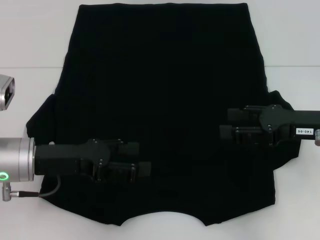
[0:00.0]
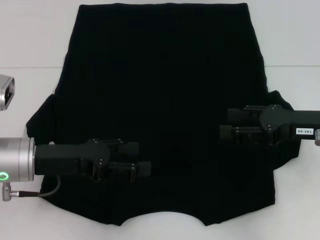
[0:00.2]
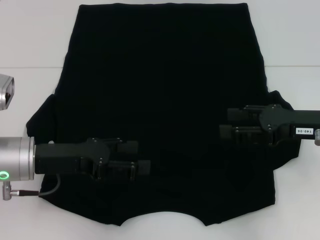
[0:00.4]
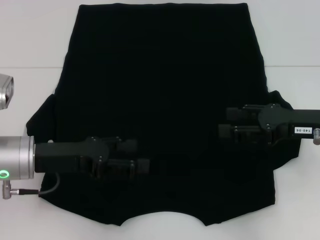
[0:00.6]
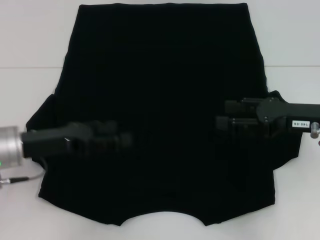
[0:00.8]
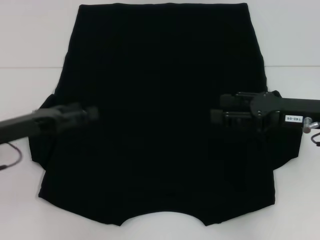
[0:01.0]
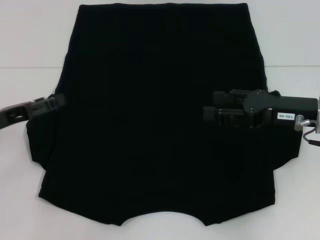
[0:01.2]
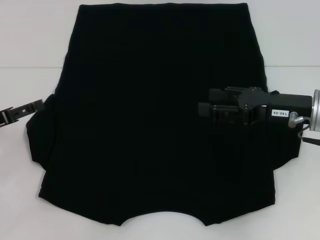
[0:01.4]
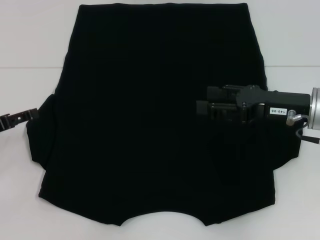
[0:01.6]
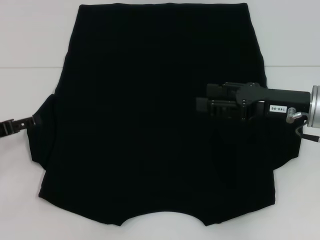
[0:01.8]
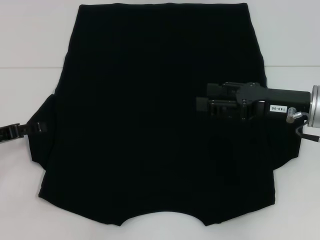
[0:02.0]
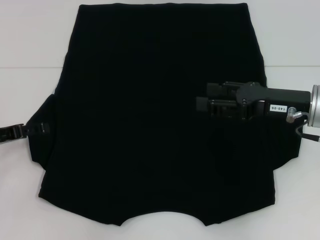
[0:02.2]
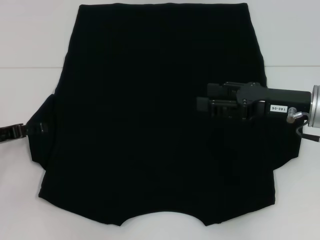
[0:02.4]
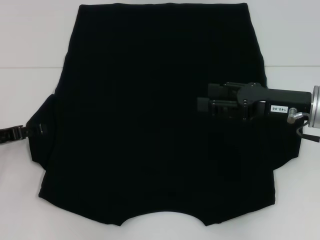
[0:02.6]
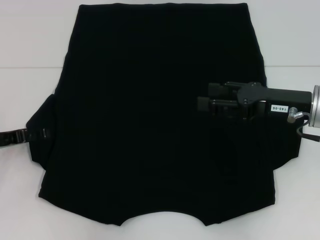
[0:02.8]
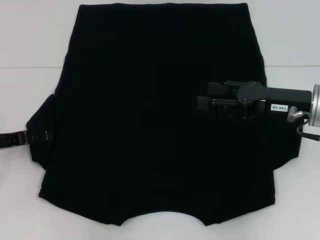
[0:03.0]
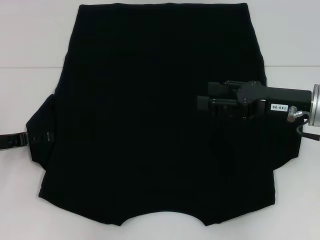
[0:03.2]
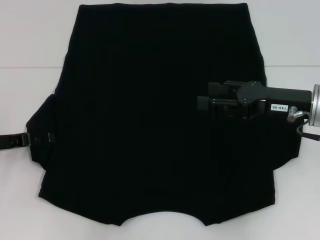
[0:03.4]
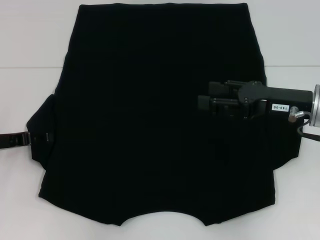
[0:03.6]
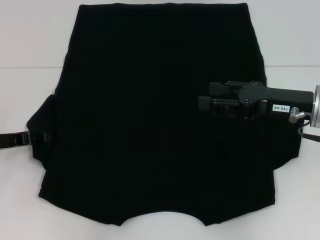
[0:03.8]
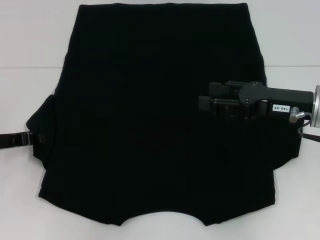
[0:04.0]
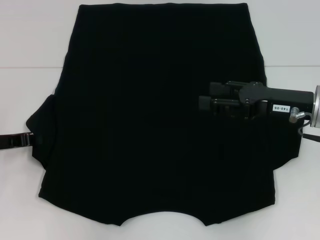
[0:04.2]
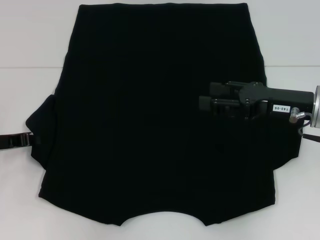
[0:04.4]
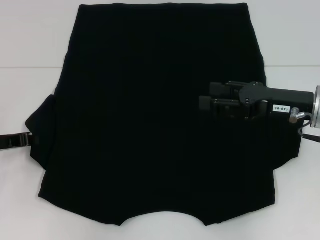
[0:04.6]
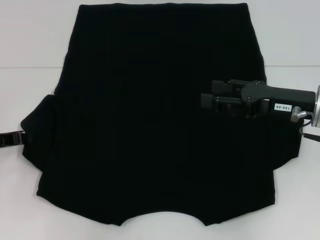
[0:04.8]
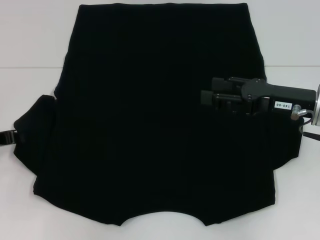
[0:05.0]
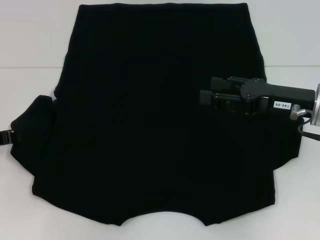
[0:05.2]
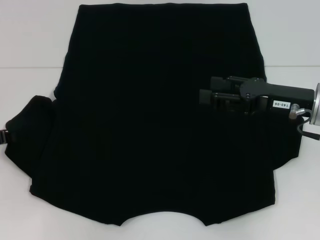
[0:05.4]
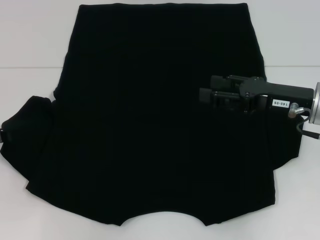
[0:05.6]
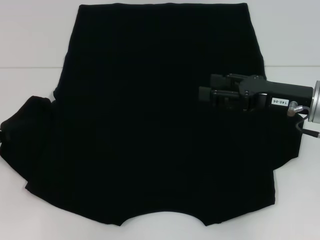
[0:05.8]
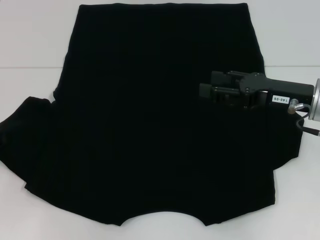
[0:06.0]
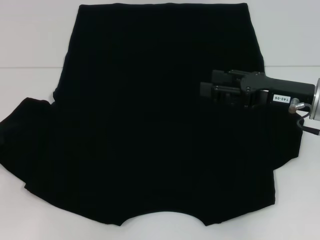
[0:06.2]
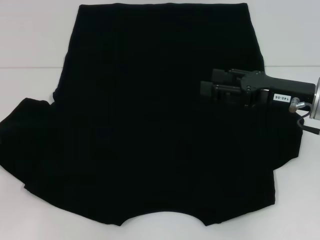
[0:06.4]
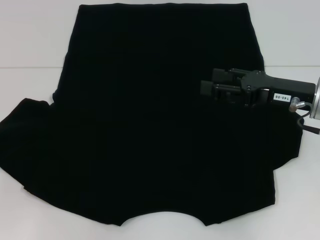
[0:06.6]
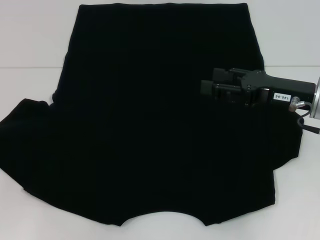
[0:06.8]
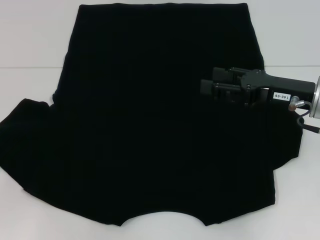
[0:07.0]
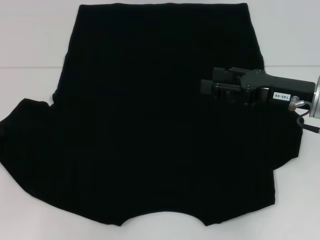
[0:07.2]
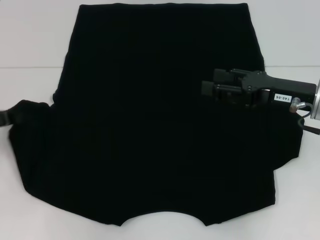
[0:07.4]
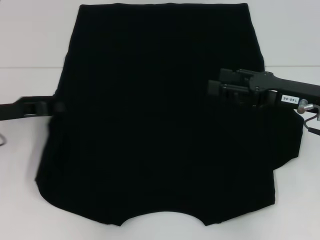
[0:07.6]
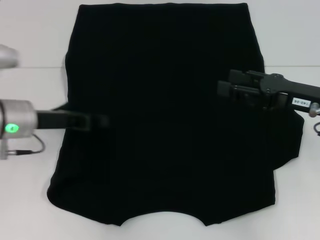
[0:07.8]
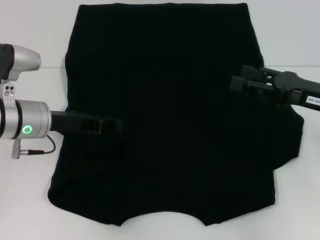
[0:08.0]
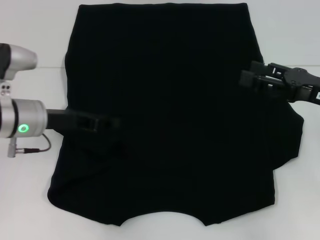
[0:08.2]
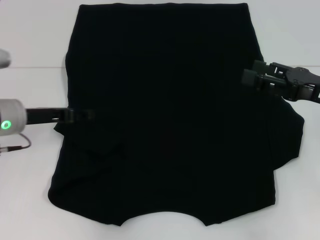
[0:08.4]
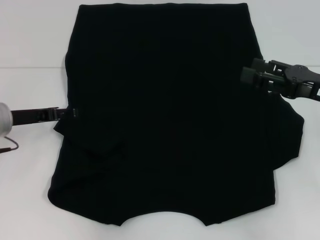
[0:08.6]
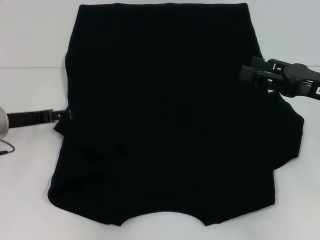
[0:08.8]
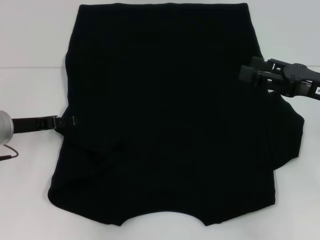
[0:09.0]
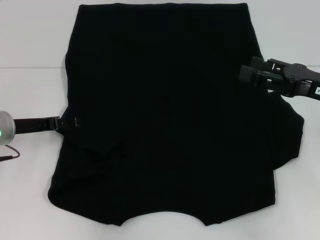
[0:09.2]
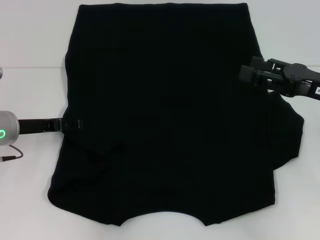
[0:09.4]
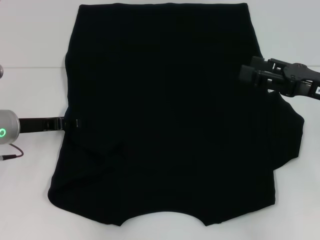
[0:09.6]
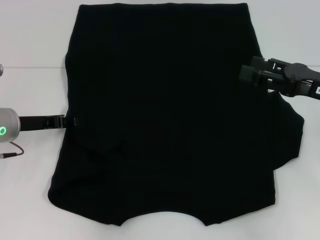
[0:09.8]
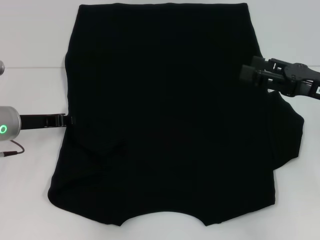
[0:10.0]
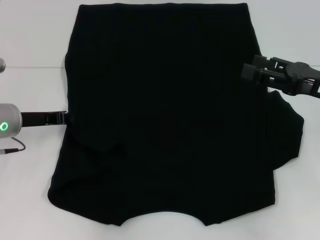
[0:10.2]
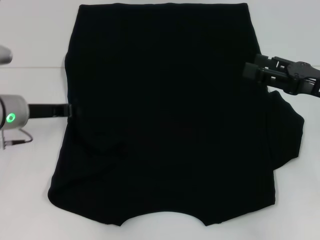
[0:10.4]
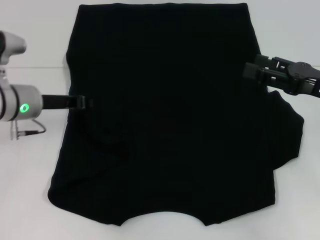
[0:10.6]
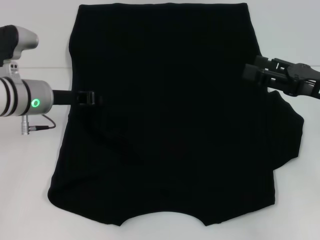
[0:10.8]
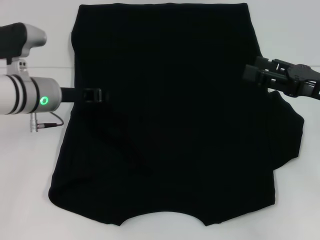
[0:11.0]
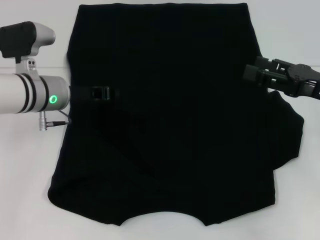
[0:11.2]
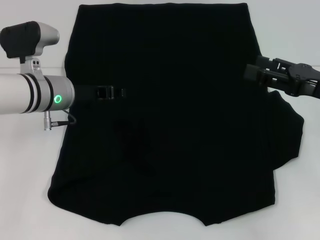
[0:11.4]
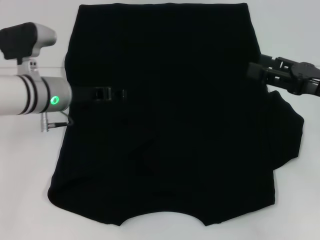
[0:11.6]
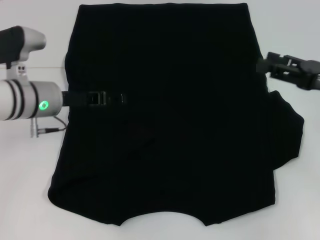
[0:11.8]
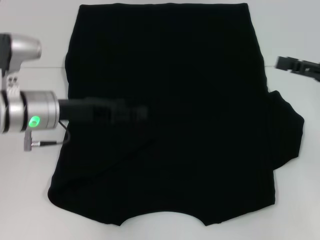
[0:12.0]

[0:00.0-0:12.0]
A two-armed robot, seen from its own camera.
Step, 0:00.0 to 0:08.2: Fold the bottom left sleeve with your left hand.
0:00.0 to 0:01.6: The left gripper is displaced to the left by some 10 cm.
0:01.6 to 0:03.0: The grippers move only a little.
0:04.4 to 0:06.0: The grippers stay close to where they were, moving slightly.
0:06.0 to 0:07.6: The left gripper shifts approximately 5 cm to the right.
0:07.6 to 0:09.0: The left gripper reaches about 10 cm to the right, then returns, and opens.
0:09.0 to 0:10.4: The left gripper closes its fingers.
0:10.4 to 0:12.0: The left gripper moves approximately 5 cm, and opens.

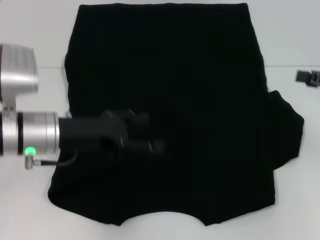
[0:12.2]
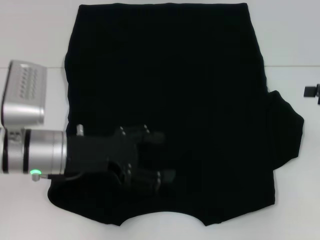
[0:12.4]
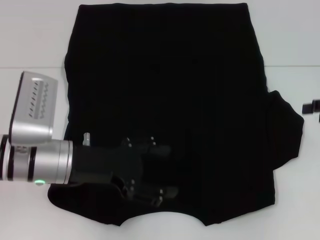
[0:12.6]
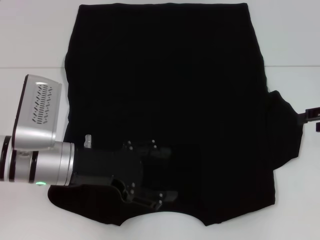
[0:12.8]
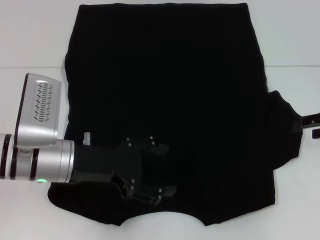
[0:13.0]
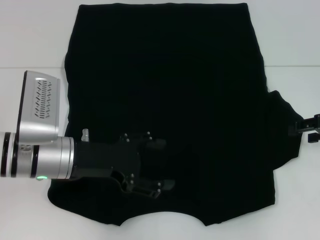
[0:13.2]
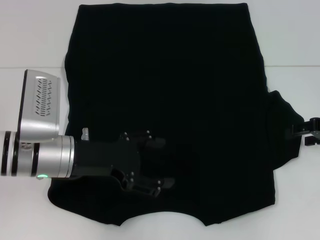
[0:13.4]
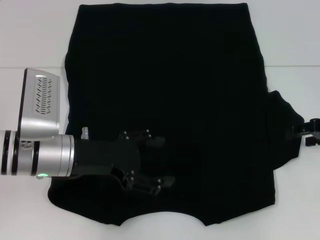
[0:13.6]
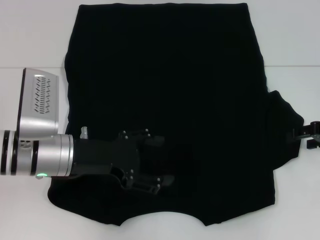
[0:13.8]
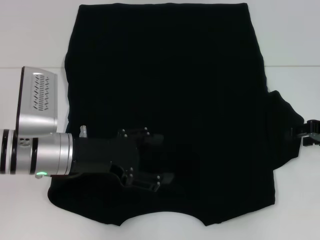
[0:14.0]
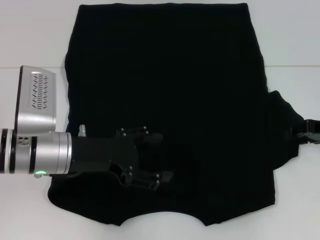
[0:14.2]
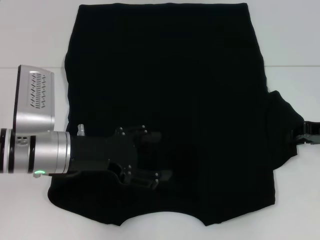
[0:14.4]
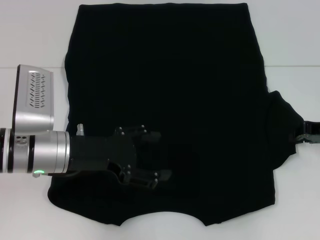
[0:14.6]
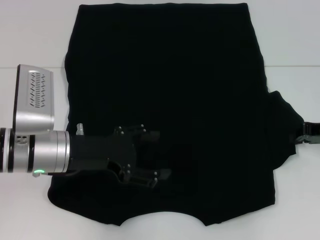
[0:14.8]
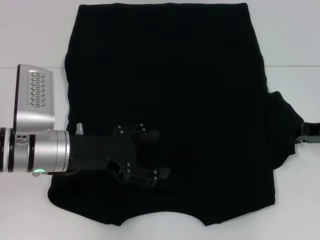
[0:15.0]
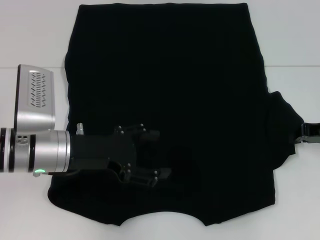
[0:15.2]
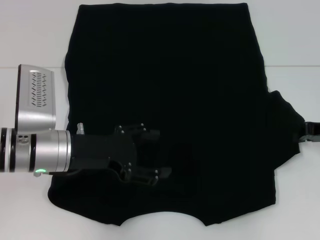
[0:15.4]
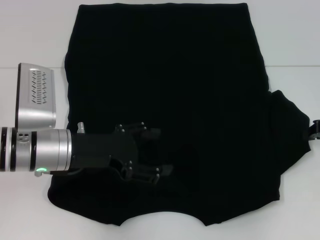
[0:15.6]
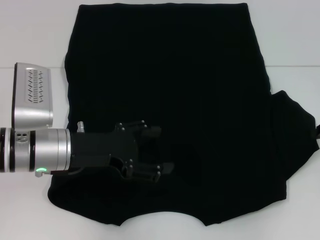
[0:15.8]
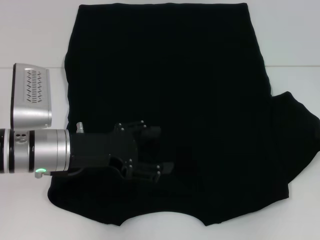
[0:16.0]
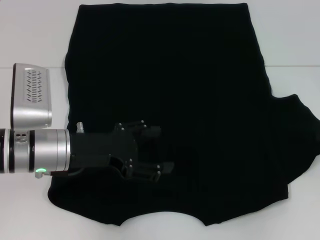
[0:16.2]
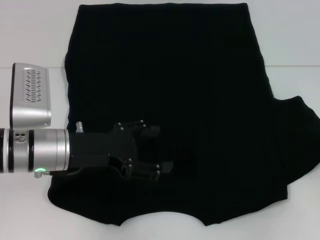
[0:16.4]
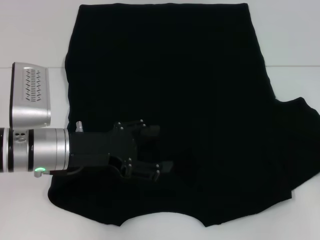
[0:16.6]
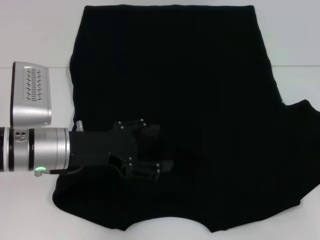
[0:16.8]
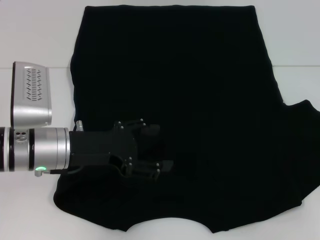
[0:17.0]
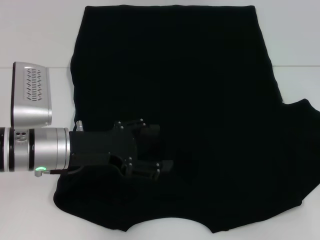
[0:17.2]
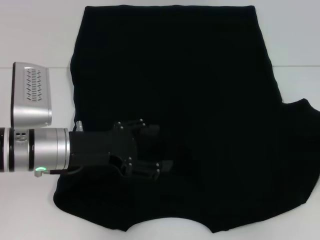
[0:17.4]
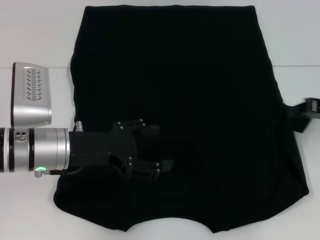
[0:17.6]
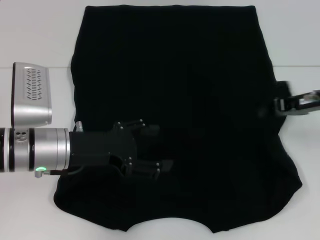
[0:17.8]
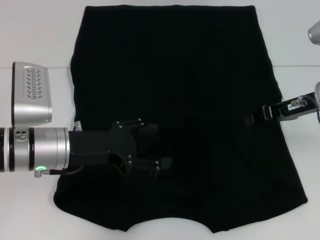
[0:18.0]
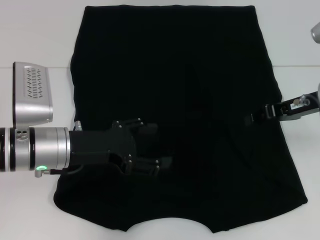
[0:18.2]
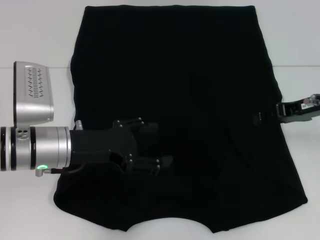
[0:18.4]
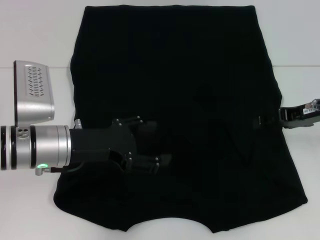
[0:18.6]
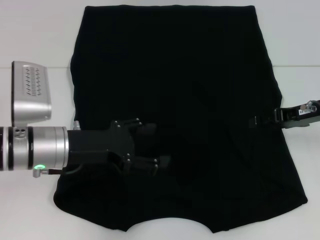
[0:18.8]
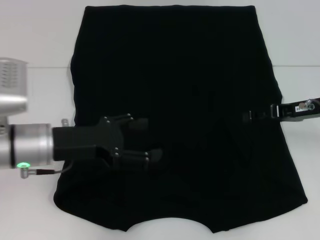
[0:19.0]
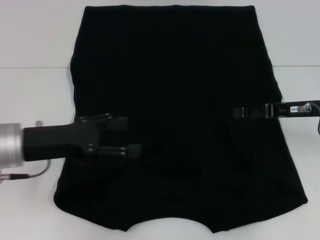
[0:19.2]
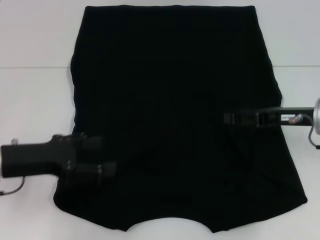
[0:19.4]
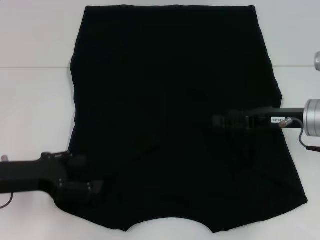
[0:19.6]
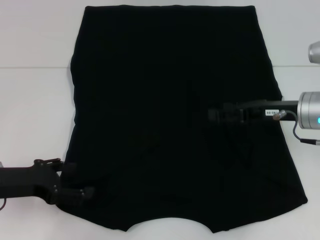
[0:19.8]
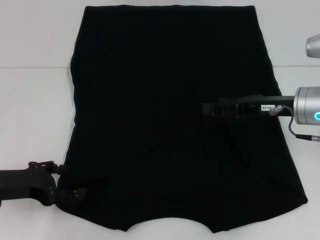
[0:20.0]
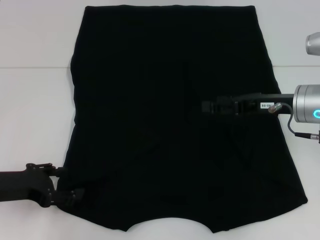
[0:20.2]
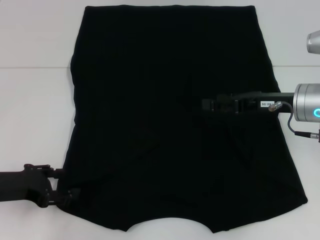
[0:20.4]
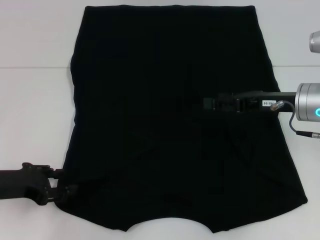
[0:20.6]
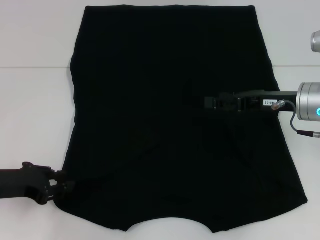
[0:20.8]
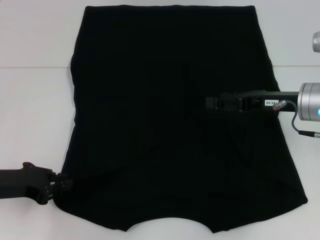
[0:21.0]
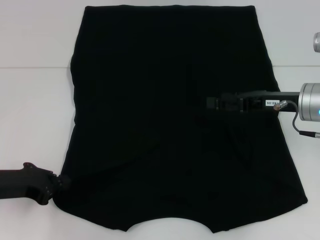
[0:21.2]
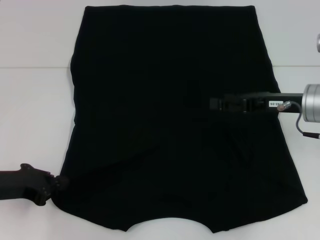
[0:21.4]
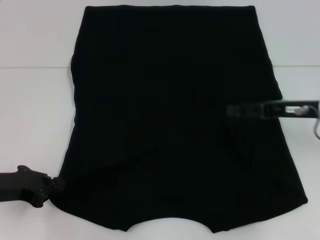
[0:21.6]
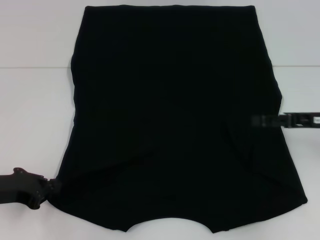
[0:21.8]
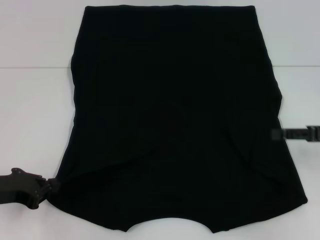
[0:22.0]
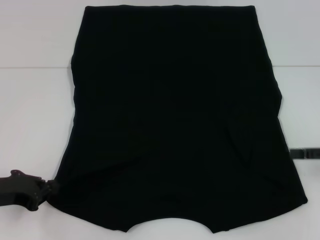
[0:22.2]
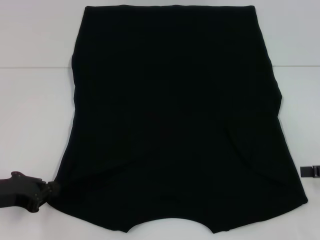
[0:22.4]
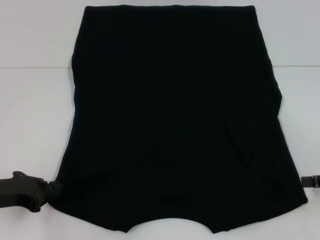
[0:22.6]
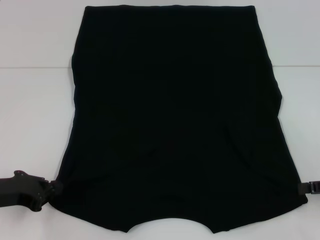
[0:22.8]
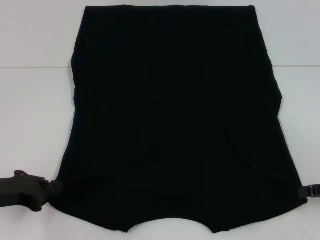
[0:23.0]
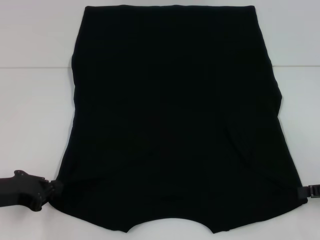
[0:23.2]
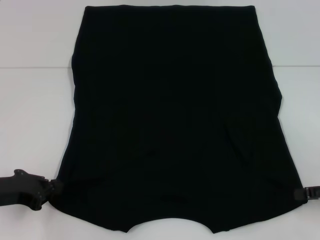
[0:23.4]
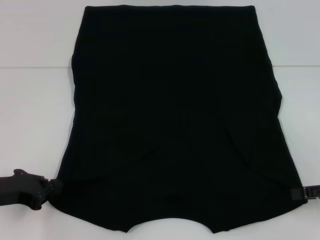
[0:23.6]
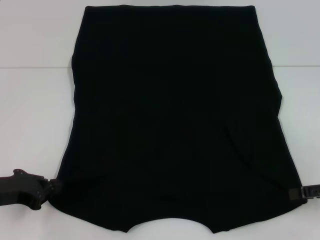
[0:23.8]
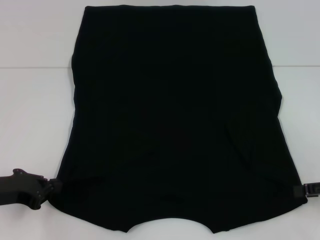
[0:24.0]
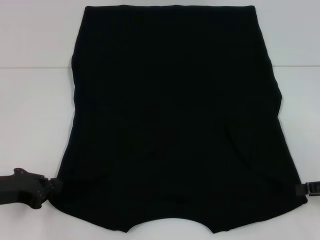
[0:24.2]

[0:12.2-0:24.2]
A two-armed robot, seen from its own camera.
Step, 0:12.2 to 0:19.2: Fold the bottom right sleeve with your right hand.
Step, 0:19.4 to 0:21.6: Grab the bottom left corner with your left hand.
0:12.2 to 0:13.8: The right gripper moves about 5 cm.
0:13.8 to 0:15.2: The right gripper closes.
0:15.2 to 0:16.6: The right gripper goes approximately 5 cm to the right.
0:16.6 to 0:18.2: The right gripper heads to the left and forward, covering roughly 15 cm.
0:18.2 to 0:19.8: The right gripper opens up; the left gripper moves to the left, approximately 10 cm.
0:19.8 to 0:21.2: The left gripper closes up.
0:21.2 to 0:22.6: The right gripper travels to the right and backward by some 15 cm.
0:22.6 to 0:24.2: The grippers move only a little.
